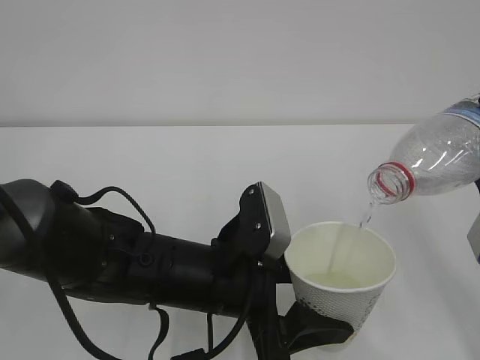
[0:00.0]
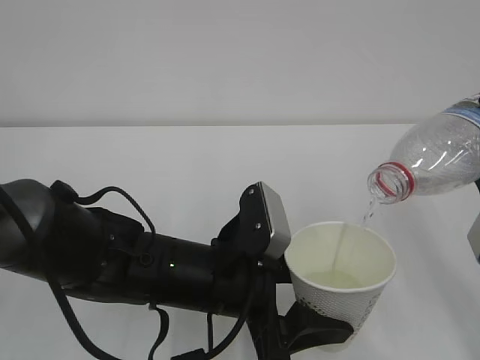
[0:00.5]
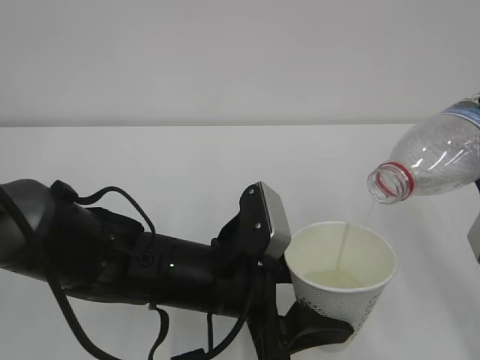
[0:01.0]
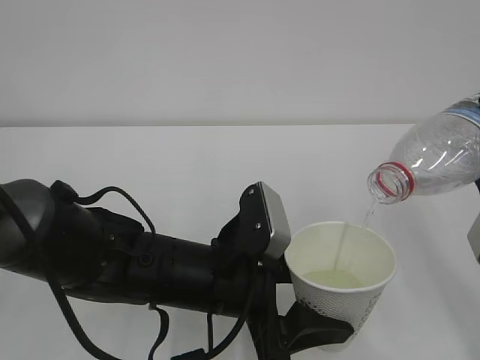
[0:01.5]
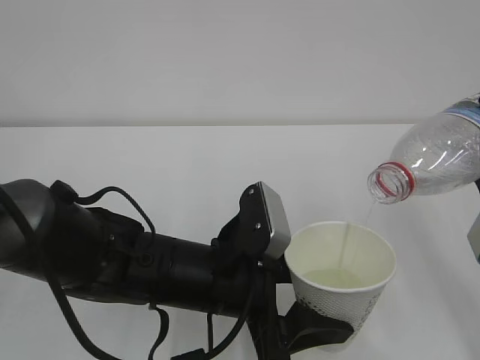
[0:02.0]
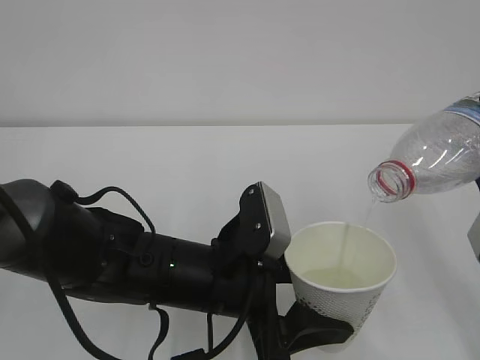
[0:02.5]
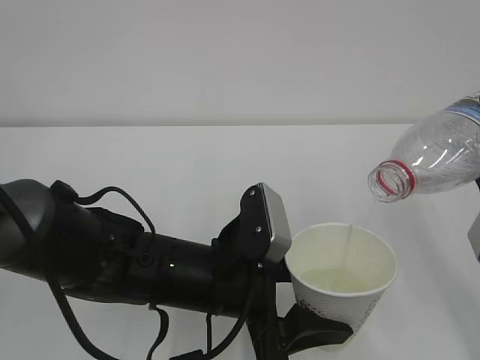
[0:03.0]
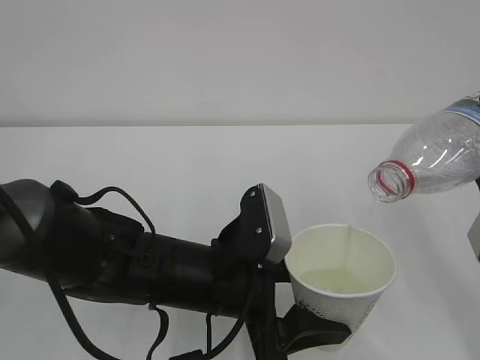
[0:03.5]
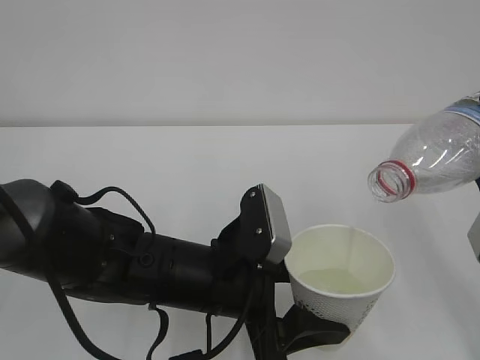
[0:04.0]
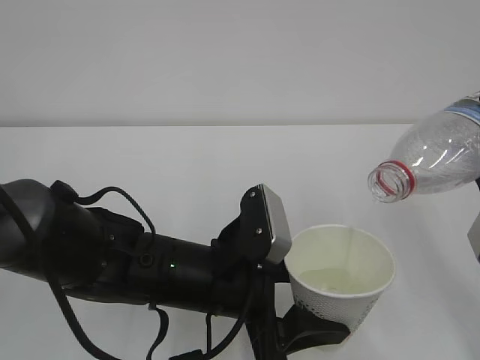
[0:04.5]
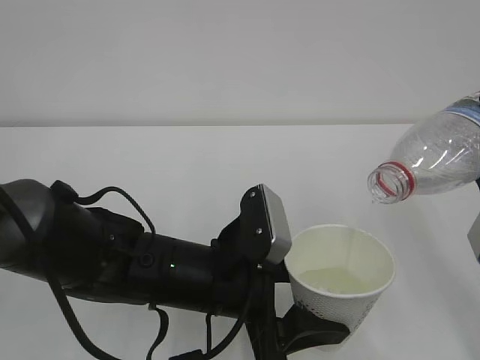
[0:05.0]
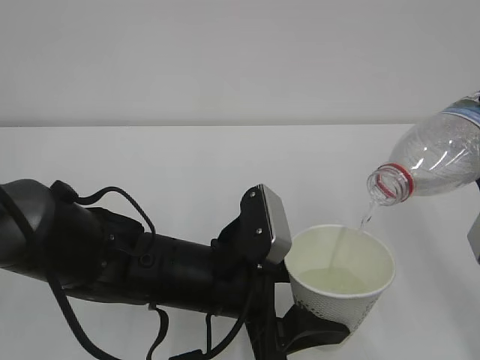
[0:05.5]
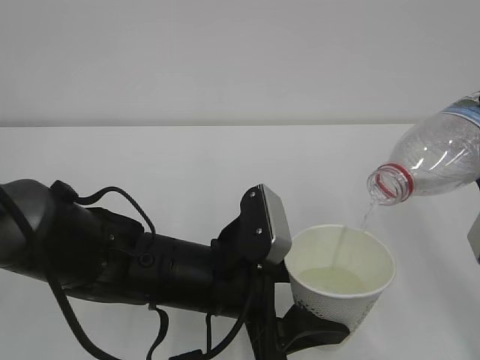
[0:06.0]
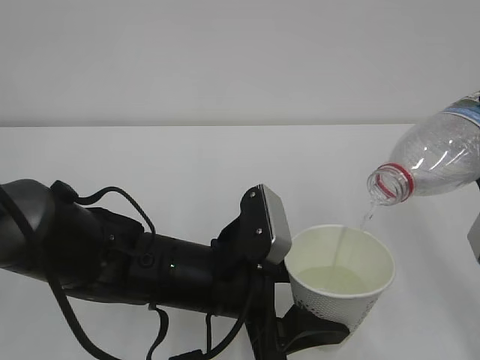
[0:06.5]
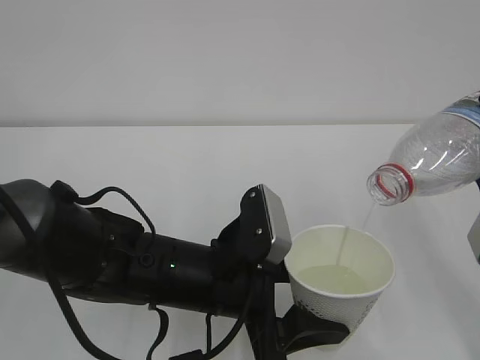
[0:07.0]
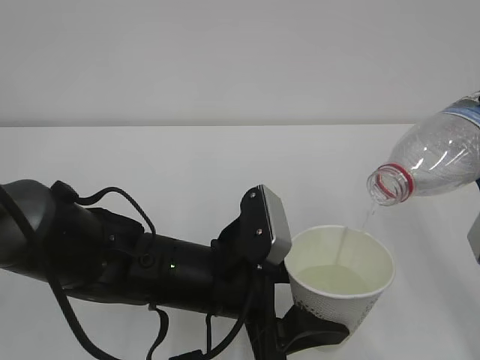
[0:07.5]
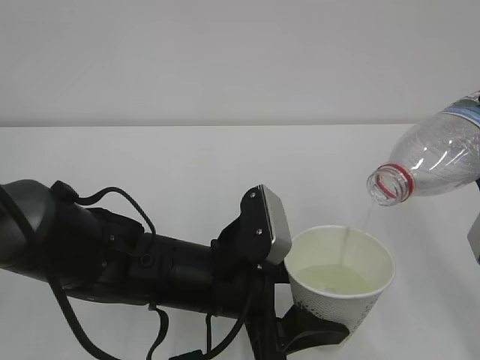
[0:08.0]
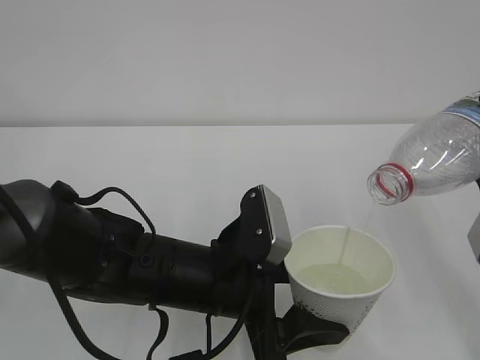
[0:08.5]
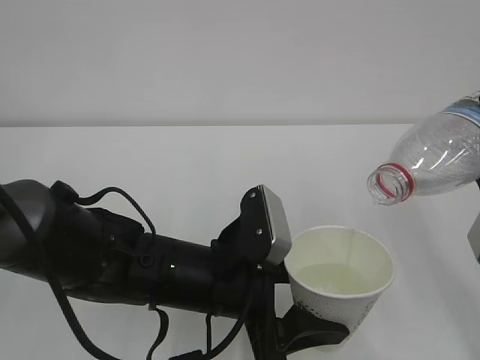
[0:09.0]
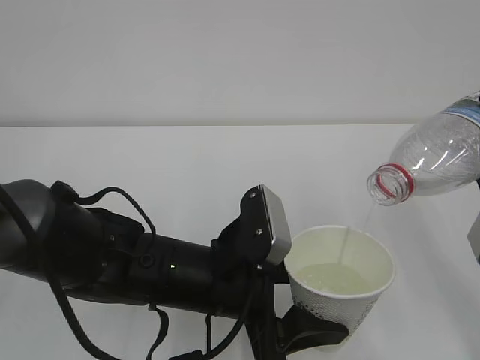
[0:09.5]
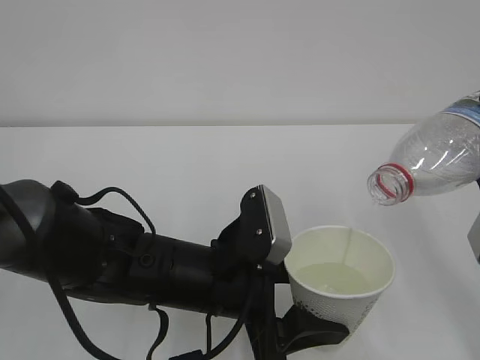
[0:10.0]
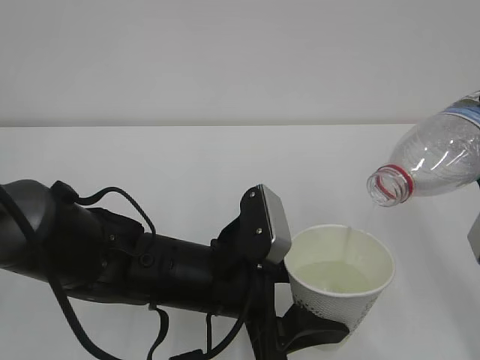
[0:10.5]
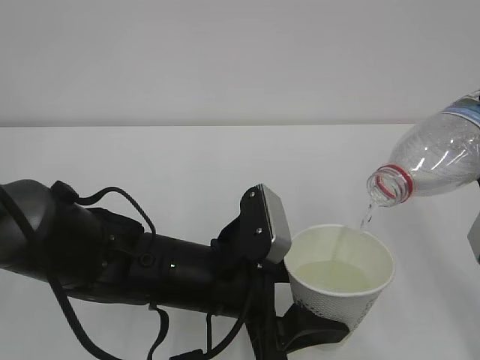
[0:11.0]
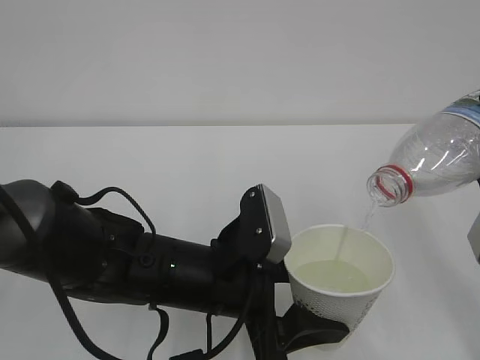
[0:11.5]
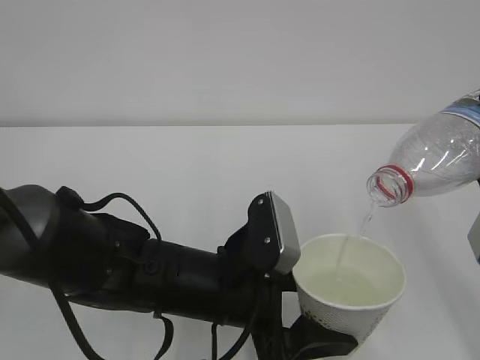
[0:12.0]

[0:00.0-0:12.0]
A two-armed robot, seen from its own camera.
0:00.0 to 0:12.0: Both grippers stay about where they are.

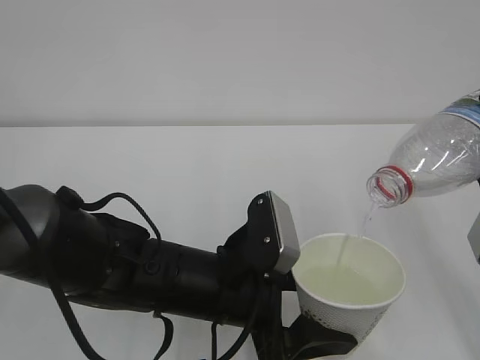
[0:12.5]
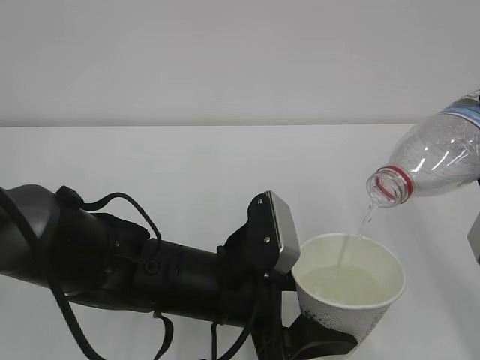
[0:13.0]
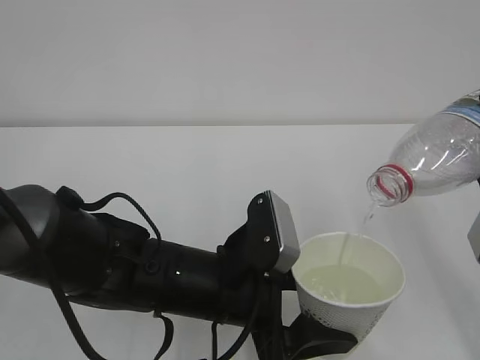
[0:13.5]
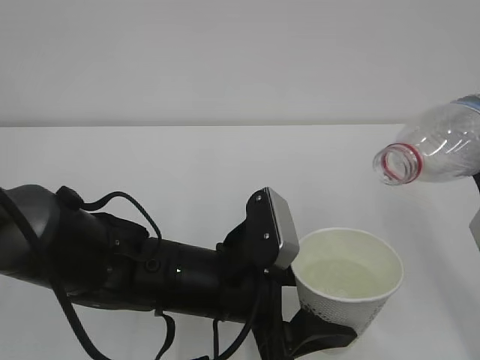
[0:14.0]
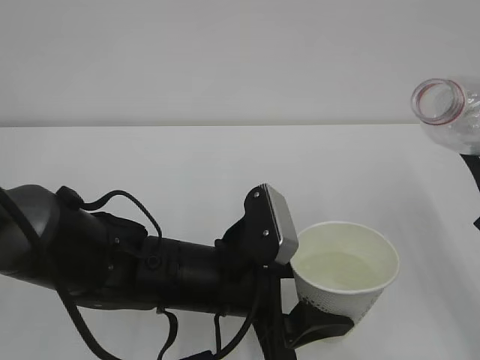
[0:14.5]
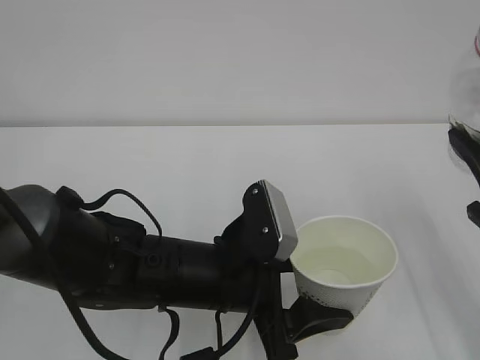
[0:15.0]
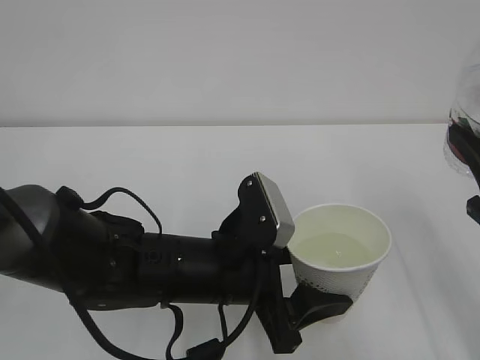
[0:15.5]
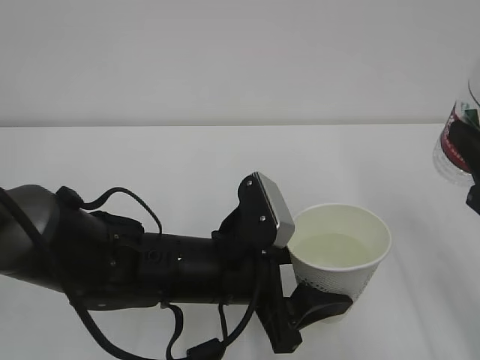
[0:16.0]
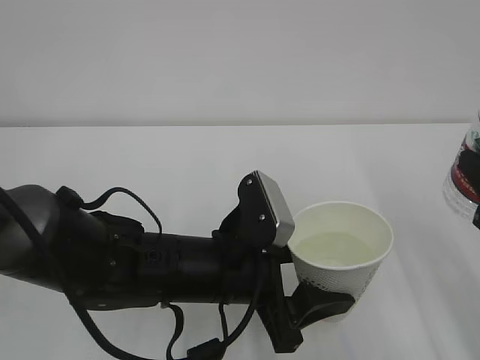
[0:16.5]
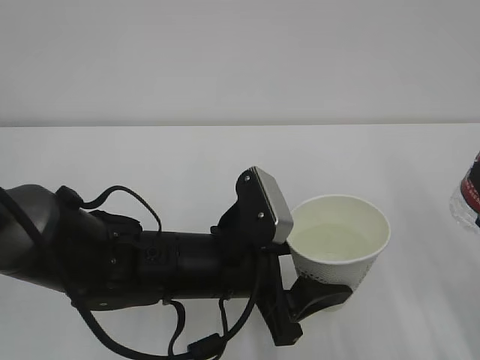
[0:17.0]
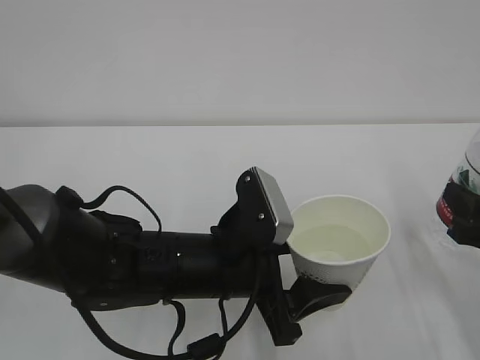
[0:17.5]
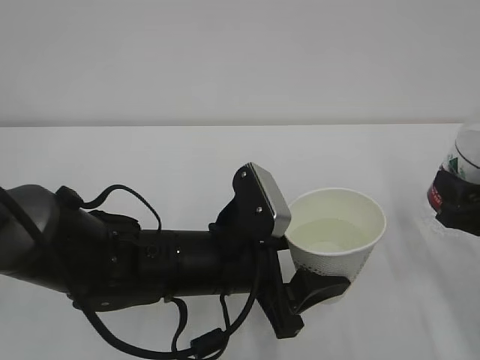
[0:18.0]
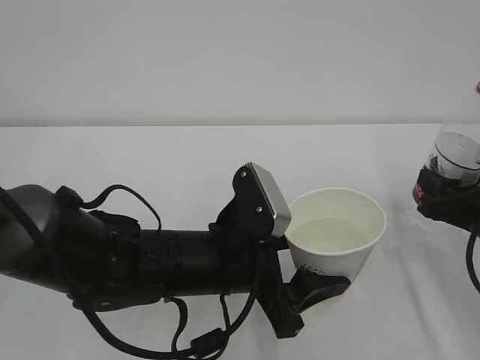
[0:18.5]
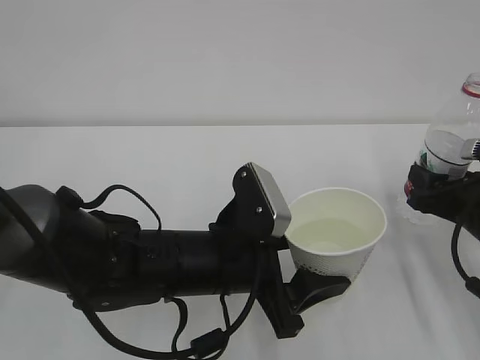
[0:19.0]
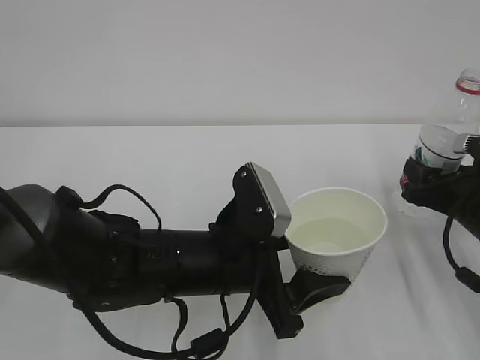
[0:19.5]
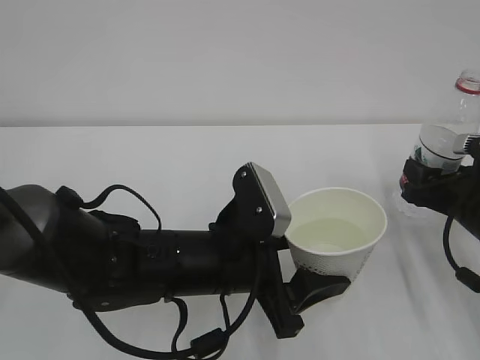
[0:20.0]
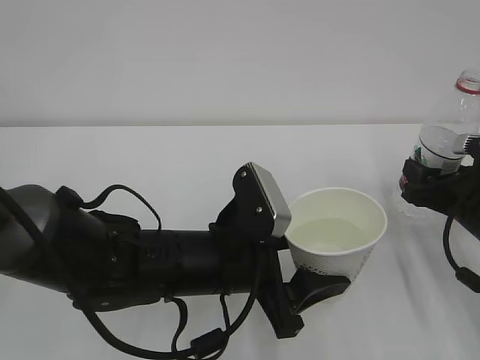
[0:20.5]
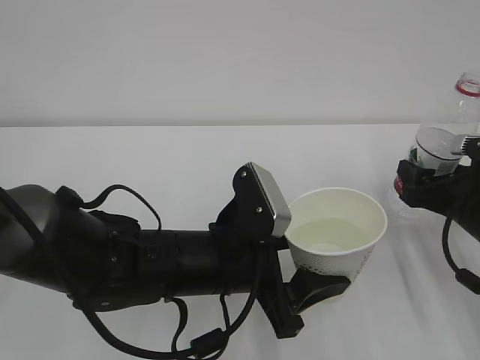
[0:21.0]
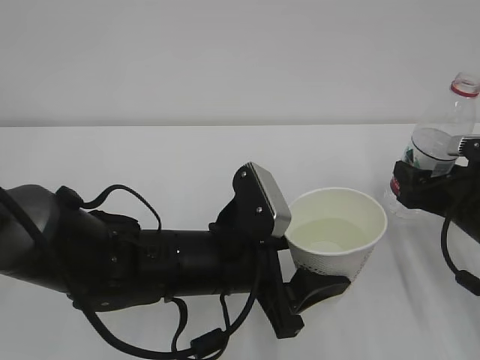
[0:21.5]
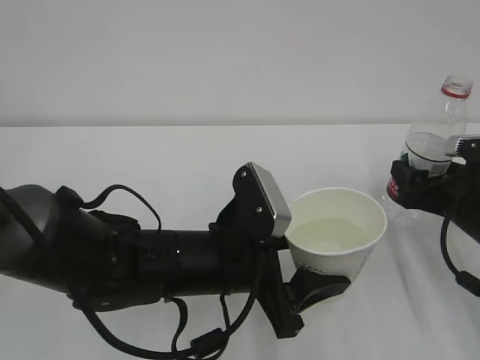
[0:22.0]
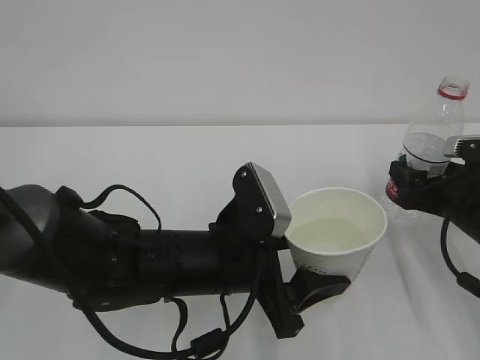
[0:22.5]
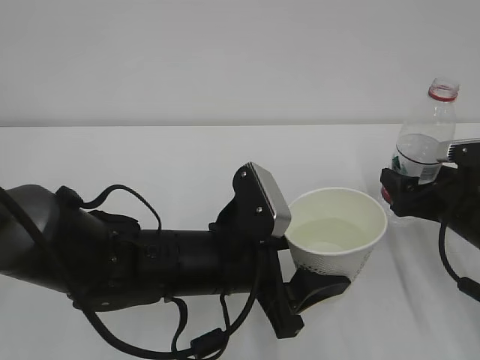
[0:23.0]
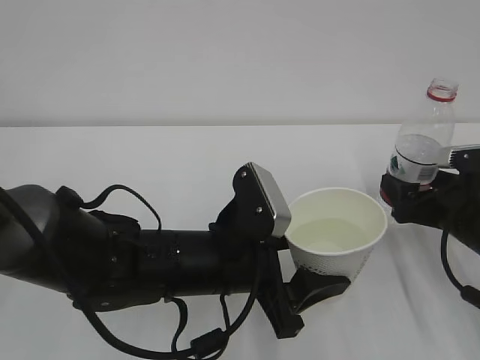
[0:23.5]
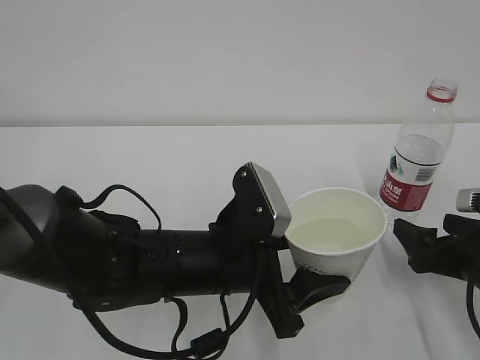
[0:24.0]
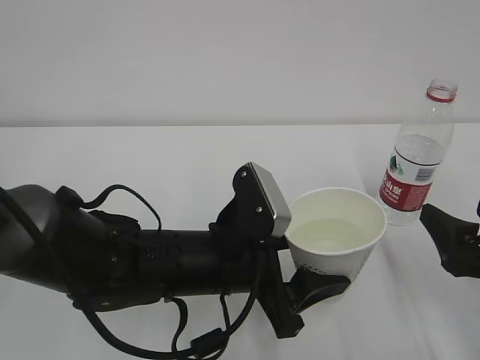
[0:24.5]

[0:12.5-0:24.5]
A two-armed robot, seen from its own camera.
0:16.5 to 0:18.5: The right gripper is displaced downward and forward by roughly 10 cm.
0:18.5 to 0:20.5: The grippers move only a little.
0:20.5 to 0:22.5: The right gripper opens.
0:22.5 to 0:24.5: The right gripper goes approximately 10 cm backward.

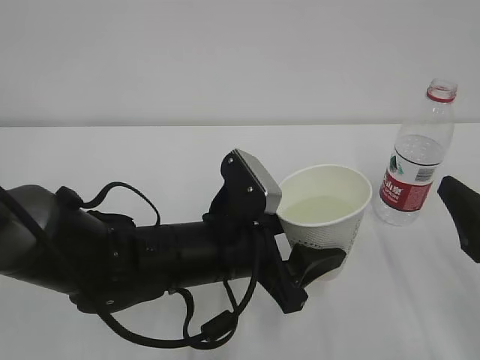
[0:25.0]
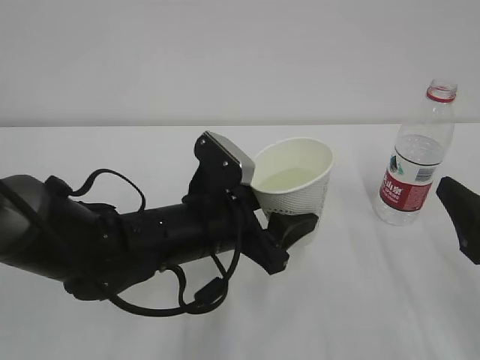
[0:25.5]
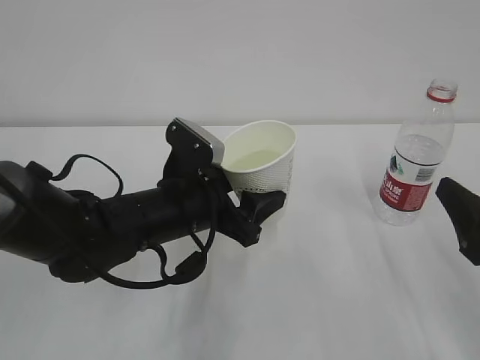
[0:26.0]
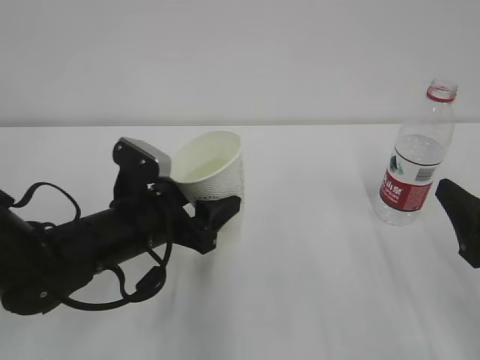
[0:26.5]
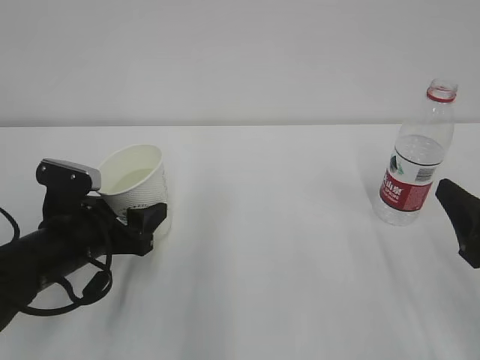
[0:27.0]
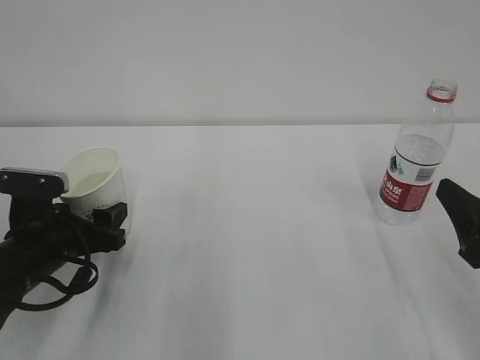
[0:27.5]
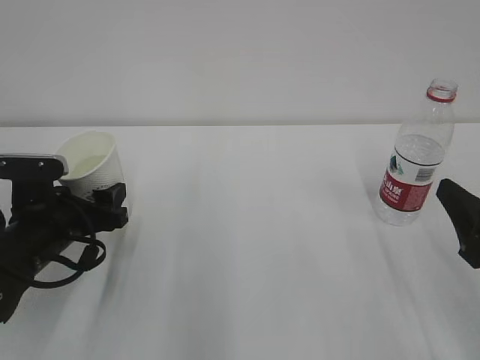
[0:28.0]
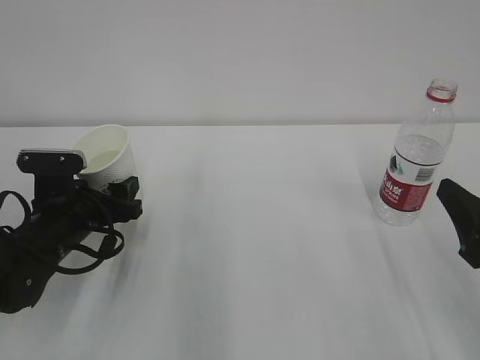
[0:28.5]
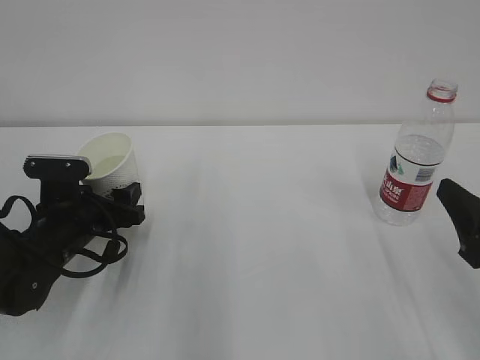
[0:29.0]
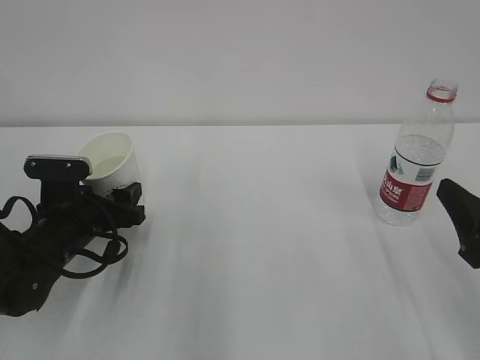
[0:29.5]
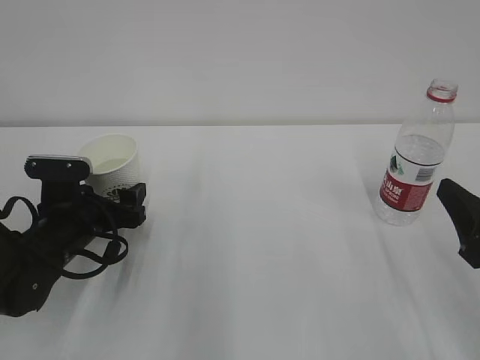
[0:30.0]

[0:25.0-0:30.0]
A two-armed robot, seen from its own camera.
0:25.0 to 0:27.5: The left gripper is displaced to the left by some 20 cm.
0:27.5 to 0:30.0: The left gripper opens up.
